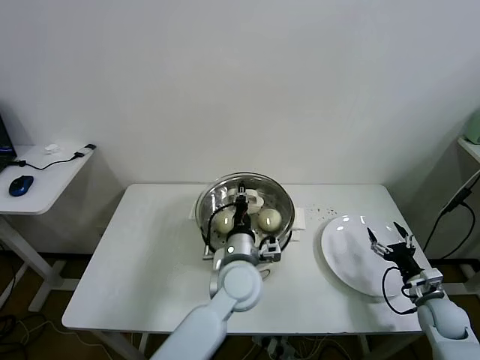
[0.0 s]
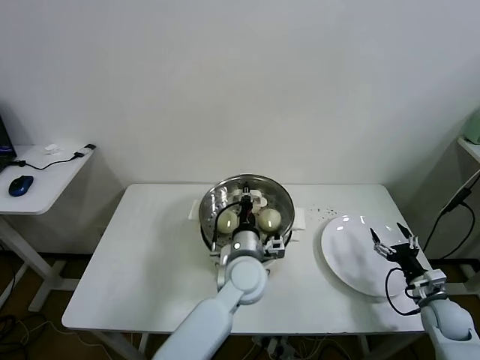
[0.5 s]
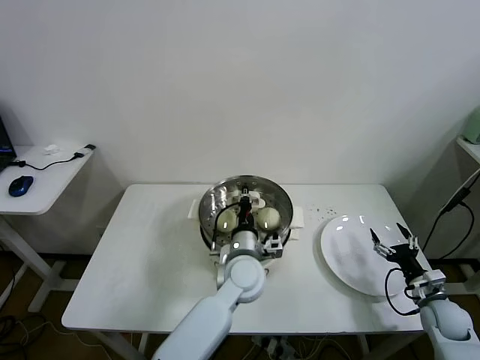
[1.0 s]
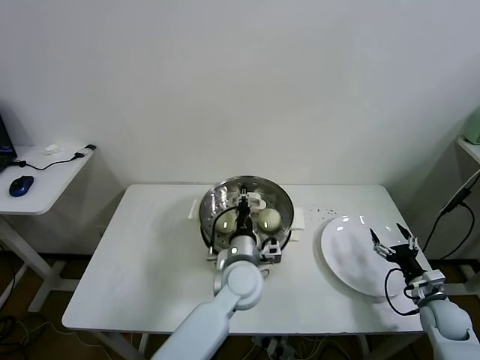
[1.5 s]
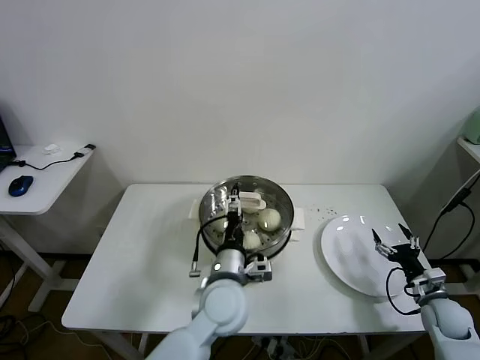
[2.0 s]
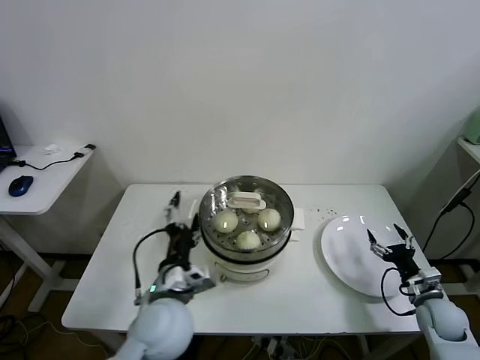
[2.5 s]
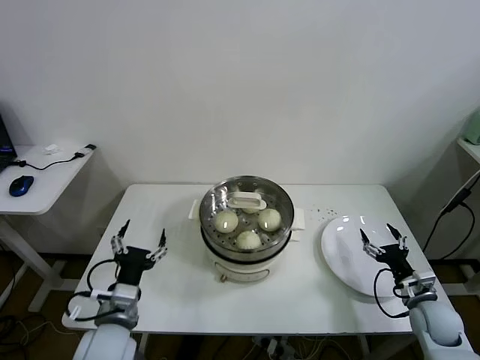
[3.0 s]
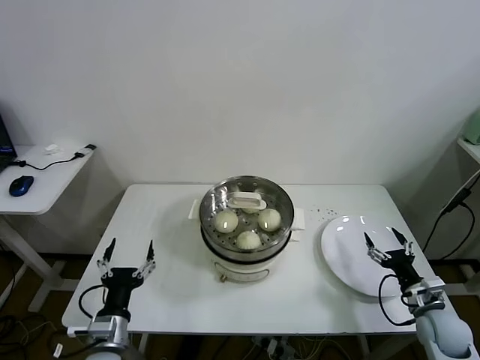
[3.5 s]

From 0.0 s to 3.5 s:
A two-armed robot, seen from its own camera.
Task of the whole recording: take steamed baozi put them in steamer.
From 0.0 s to 2.0 s: The left gripper opens up.
From 2.0 s to 3.5 s: The left gripper travels to the left and backward by some 25 cm; the right gripper ends up about 5 cm from where it was.
